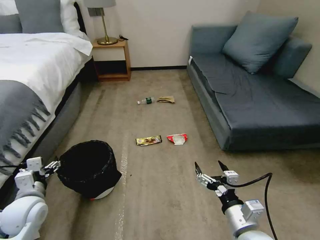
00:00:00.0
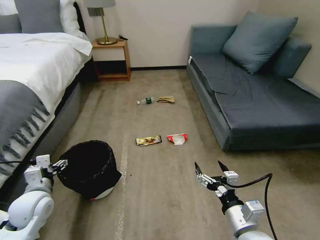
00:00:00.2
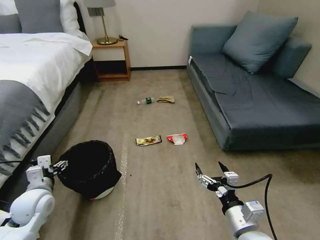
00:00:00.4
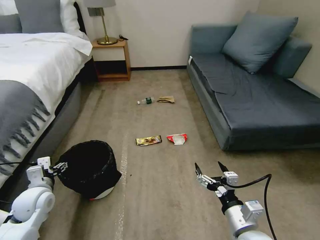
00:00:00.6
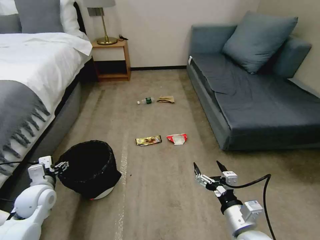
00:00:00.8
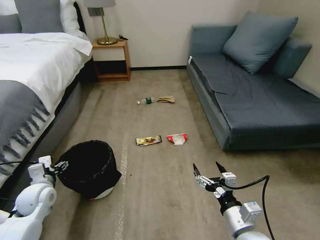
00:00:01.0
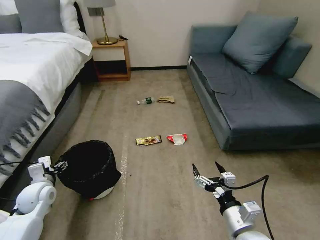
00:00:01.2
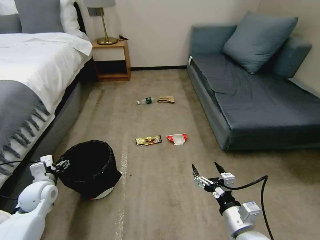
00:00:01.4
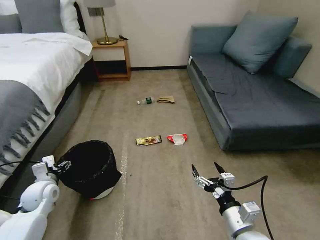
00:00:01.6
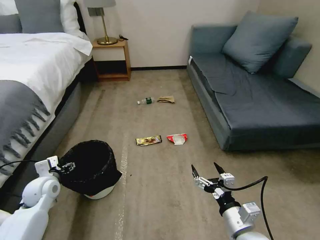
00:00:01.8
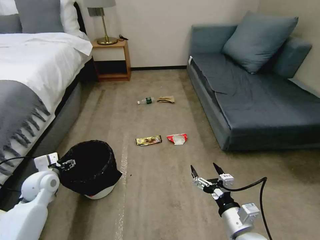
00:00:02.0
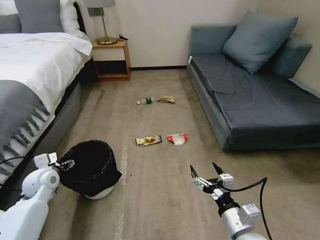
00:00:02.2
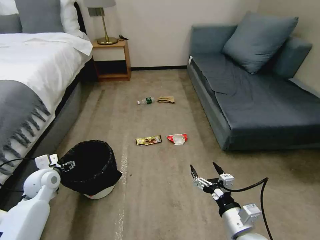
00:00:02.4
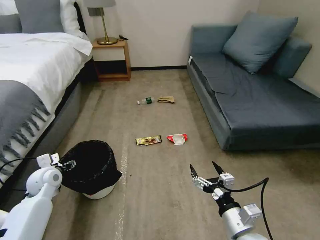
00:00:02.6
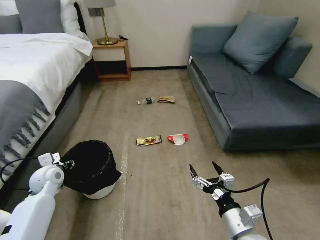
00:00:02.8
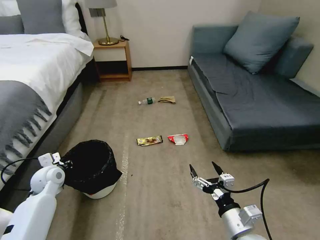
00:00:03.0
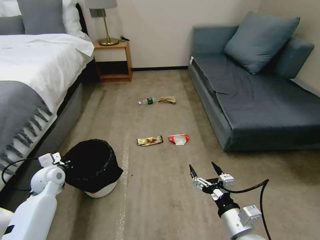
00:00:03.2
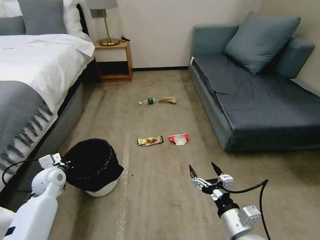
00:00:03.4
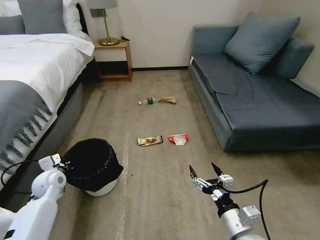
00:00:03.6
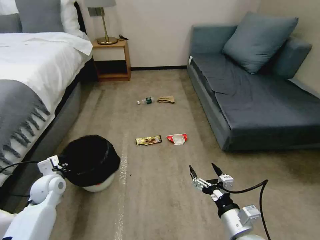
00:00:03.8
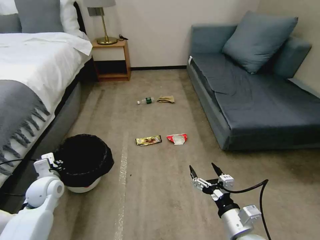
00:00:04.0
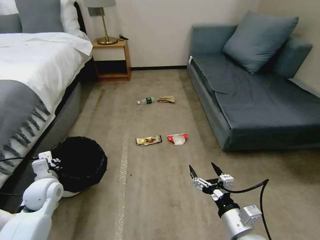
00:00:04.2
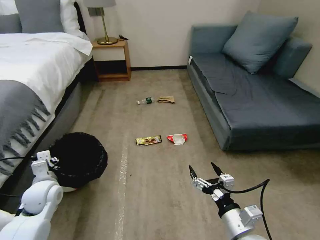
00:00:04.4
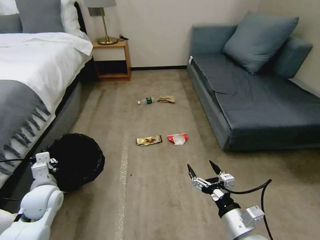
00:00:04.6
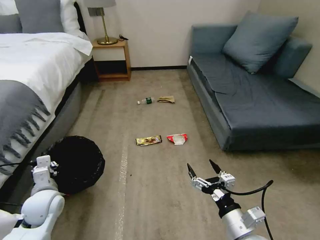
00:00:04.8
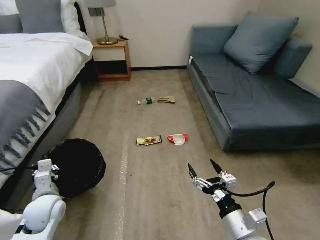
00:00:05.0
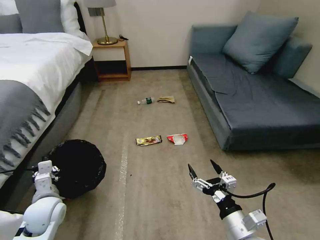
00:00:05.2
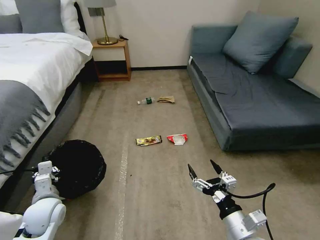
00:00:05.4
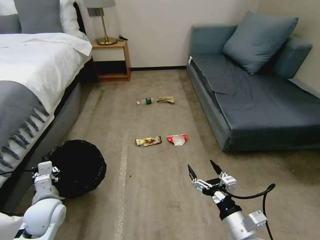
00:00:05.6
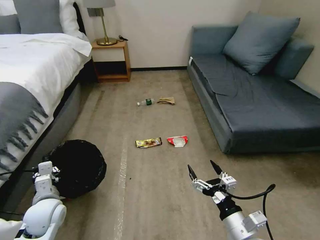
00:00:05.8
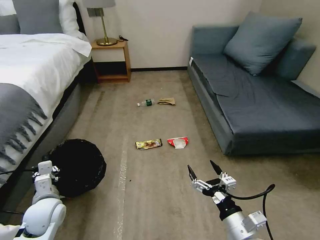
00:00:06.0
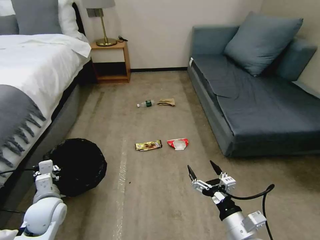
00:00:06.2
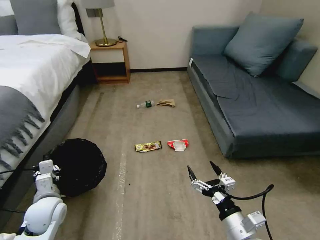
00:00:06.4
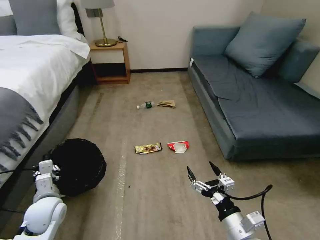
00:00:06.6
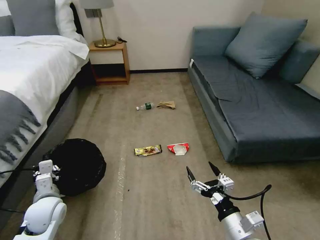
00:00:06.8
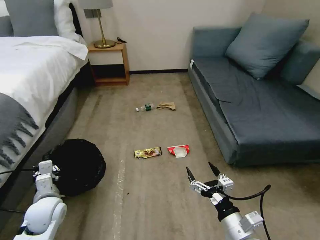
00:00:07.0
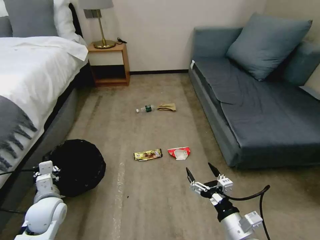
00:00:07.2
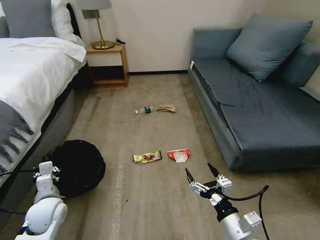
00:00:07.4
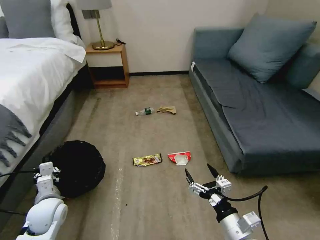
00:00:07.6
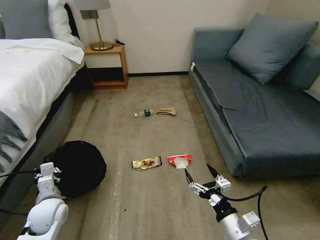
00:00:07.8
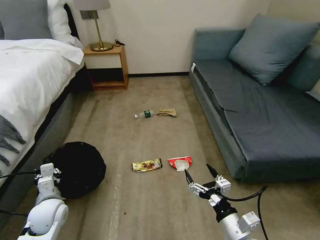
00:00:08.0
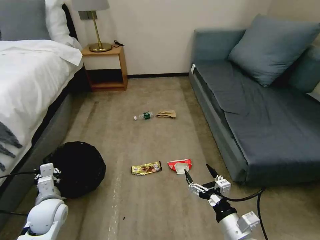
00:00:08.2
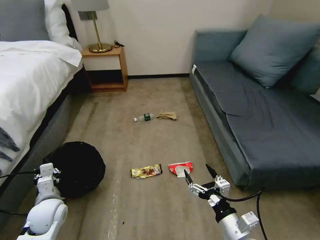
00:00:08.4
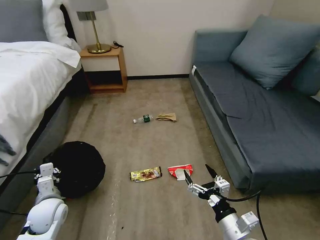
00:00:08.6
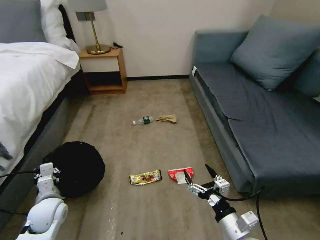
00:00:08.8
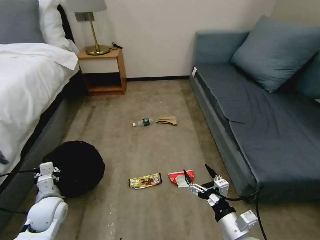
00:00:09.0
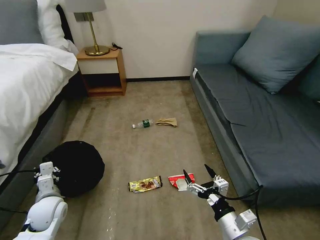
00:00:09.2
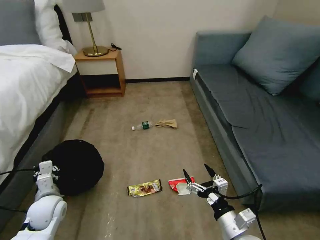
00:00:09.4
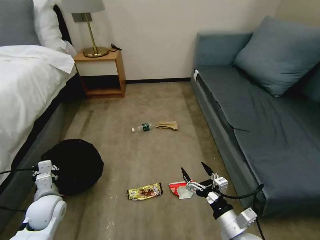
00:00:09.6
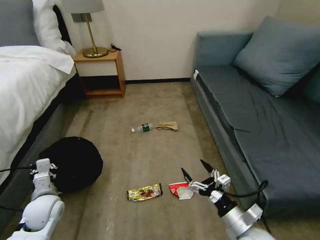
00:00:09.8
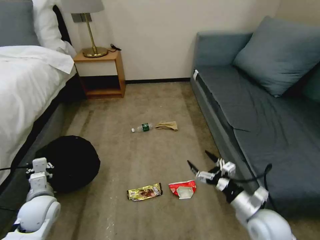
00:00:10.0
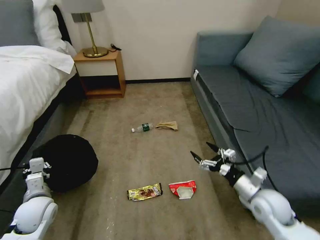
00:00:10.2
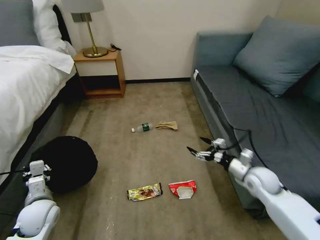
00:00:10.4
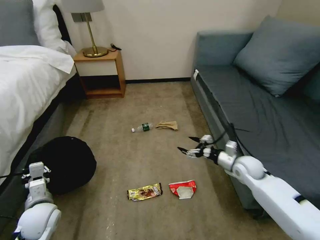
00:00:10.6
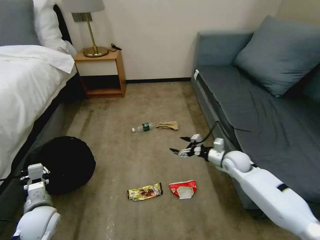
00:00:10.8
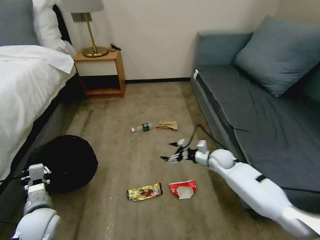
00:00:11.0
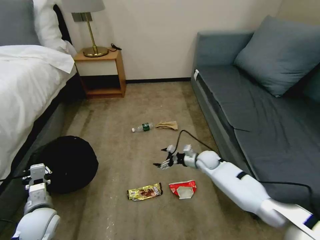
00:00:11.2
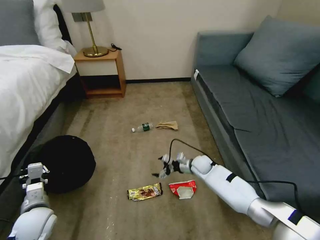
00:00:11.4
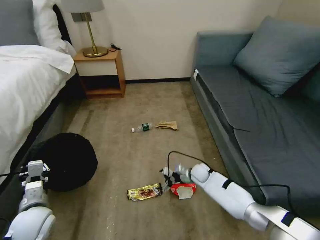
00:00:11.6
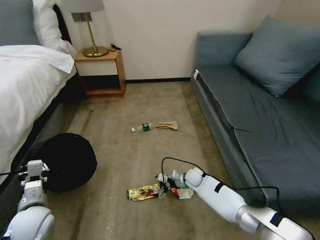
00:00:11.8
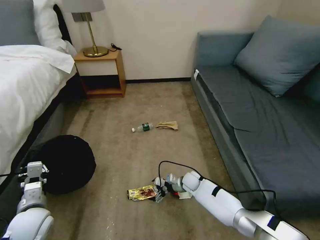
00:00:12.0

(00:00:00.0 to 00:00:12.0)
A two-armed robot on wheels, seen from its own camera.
Task of the whole recording: Pick up the trash bin, then pick up the garbage on the floor and place it into the trash bin.
00:00:00.0 - 00:00:01.6: The left gripper shifts approximately 5 cm forward.
00:00:01.6 - 00:00:03.0: The left gripper shifts approximately 5 cm forward, and closes up.
00:00:03.0 - 00:00:04.4: The left gripper moves backward, some 5 cm.
00:00:04.4 - 00:00:06.0: The left gripper changes place by about 5 cm.
00:00:09.0 - 00:00:10.4: The right gripper goes roughly 25 cm forward and to the right.
00:00:10.4 - 00:00:12.0: The right gripper travels to the left and downward by about 30 cm.

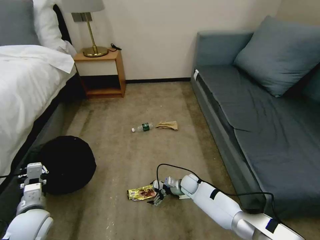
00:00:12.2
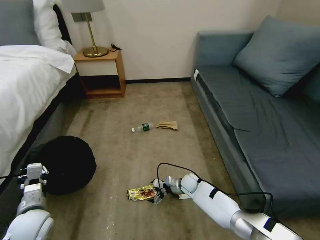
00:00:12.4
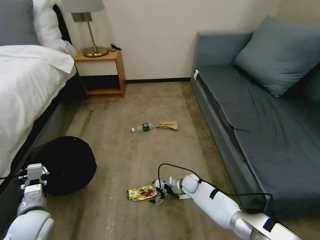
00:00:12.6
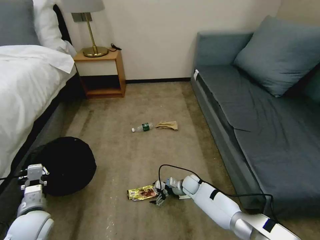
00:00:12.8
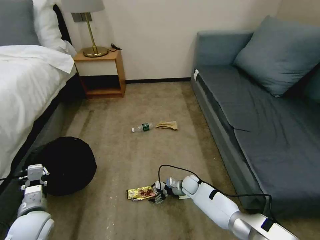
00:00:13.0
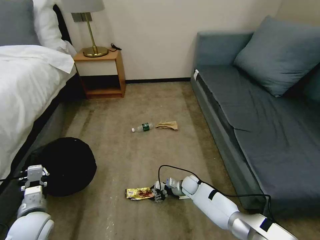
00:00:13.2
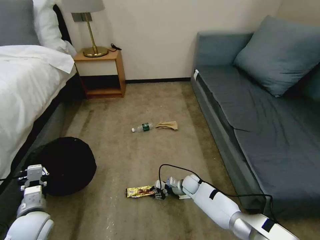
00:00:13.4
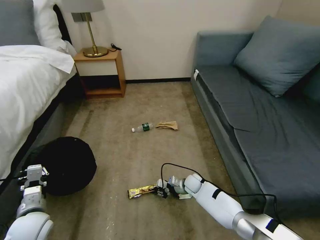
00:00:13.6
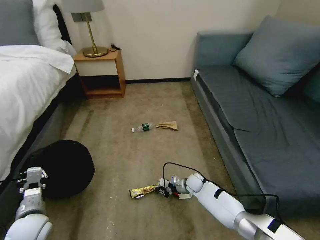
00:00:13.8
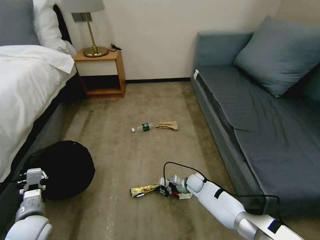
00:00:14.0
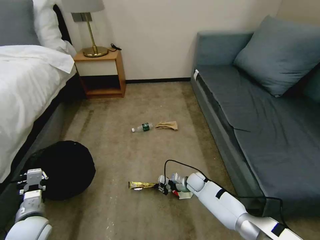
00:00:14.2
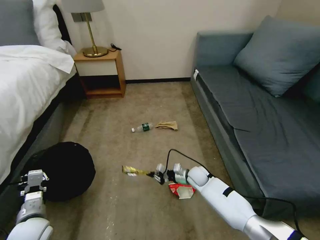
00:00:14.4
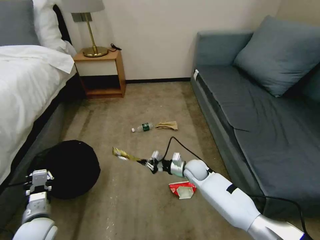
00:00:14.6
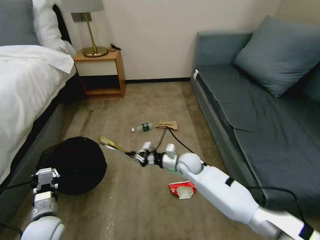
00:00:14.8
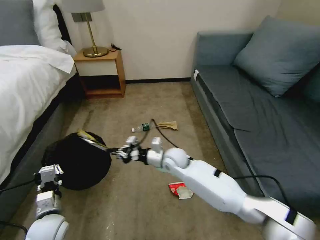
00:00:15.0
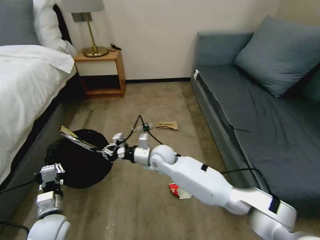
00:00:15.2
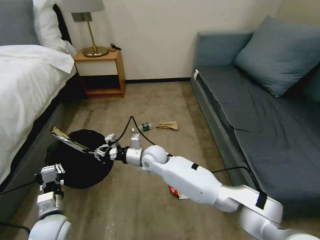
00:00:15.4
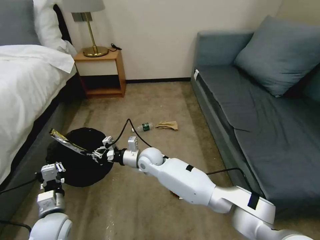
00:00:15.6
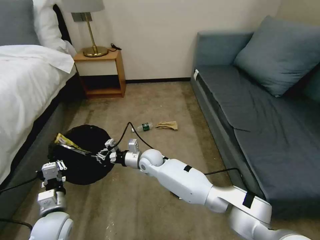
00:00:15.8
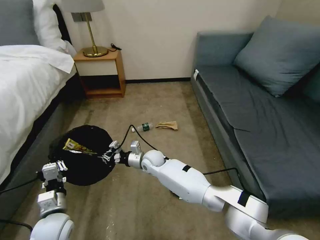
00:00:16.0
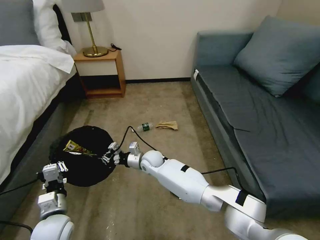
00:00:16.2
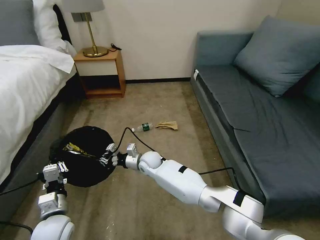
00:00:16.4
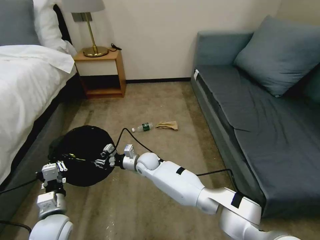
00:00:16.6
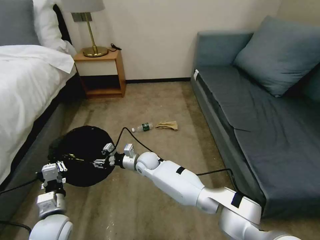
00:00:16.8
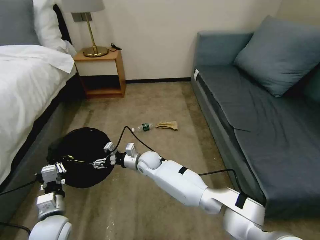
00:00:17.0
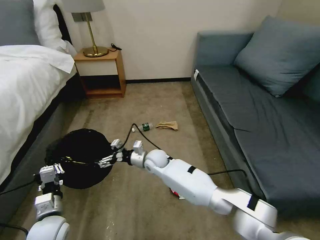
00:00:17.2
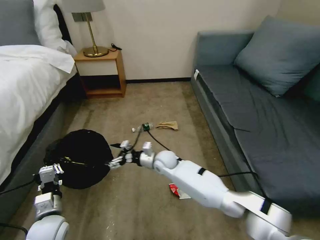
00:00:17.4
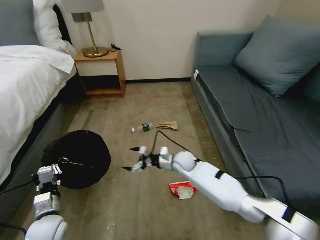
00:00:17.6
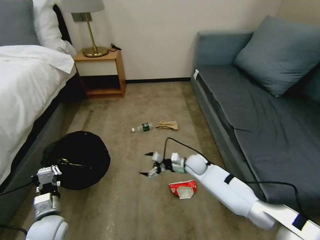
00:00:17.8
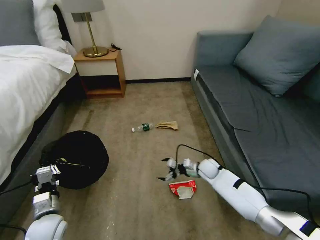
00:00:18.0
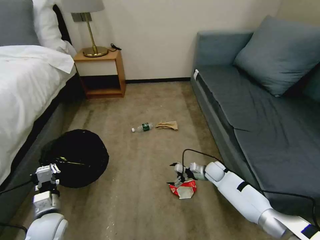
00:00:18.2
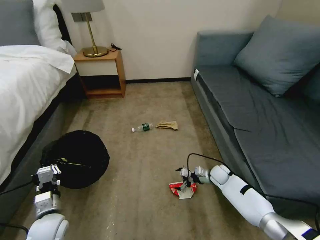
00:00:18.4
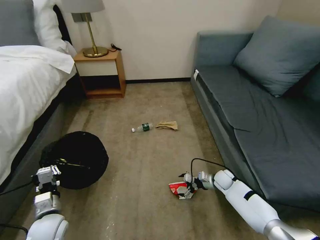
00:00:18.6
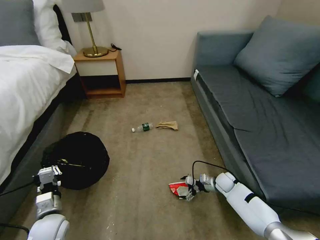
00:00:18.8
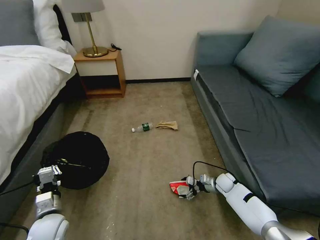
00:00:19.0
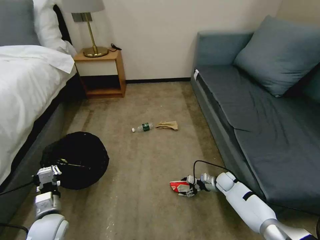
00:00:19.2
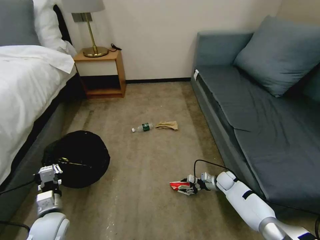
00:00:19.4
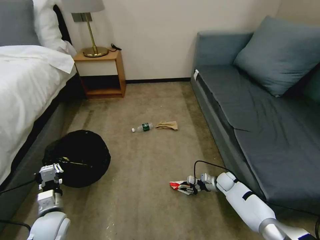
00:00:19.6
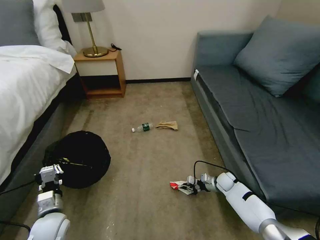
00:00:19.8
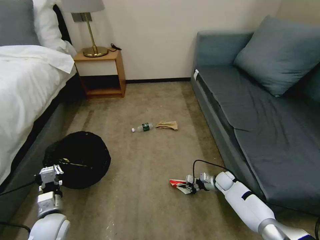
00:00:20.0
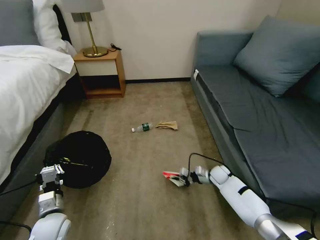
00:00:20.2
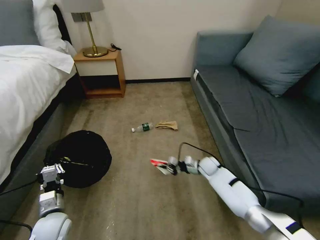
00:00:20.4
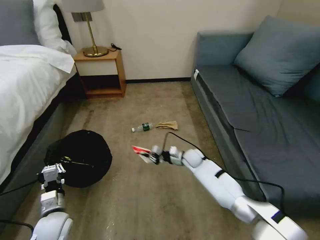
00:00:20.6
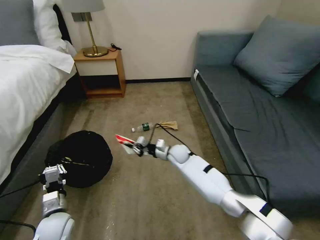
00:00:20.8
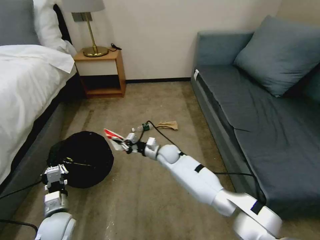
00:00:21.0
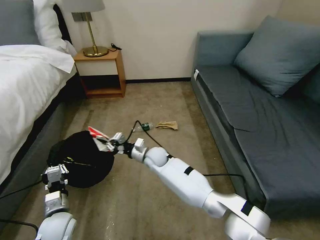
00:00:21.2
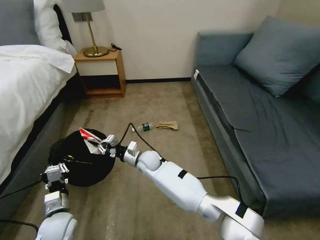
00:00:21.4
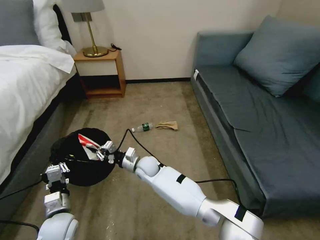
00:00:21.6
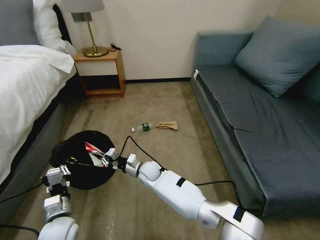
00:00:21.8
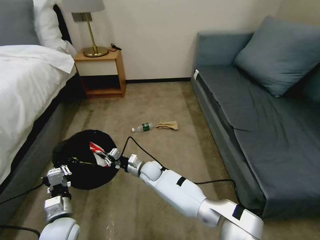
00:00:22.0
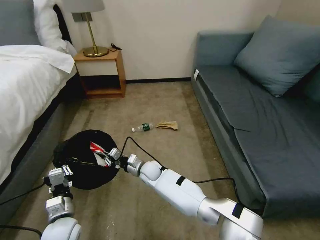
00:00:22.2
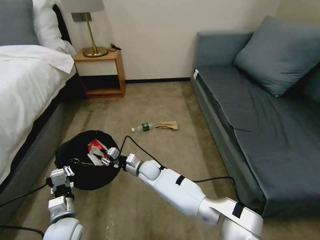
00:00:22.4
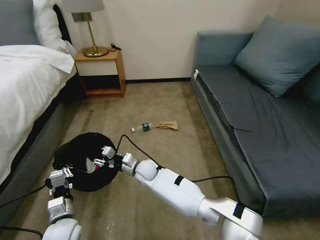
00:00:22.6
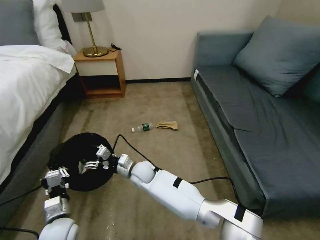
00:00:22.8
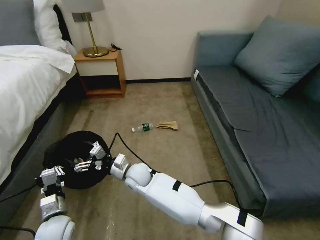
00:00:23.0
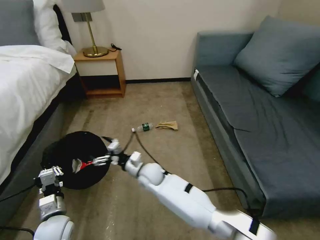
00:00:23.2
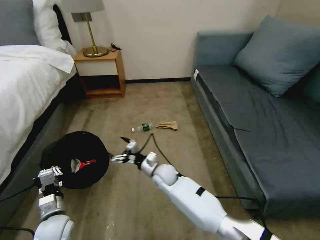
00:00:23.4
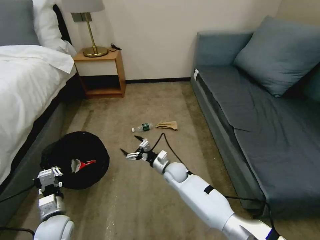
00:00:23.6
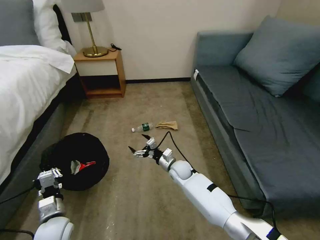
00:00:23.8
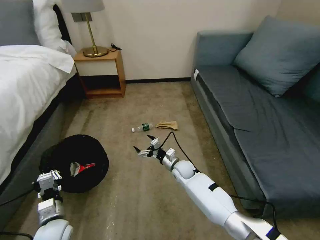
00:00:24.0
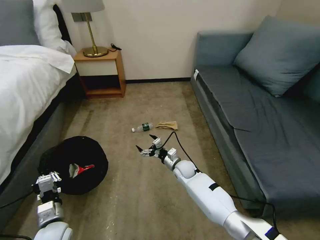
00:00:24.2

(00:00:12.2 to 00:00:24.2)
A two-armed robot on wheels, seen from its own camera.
Task of the whole recording: Pick up the trash bin, then pick up the garbage on the floor and place it into the trash bin.
00:00:12.2 - 00:00:13.8: The right gripper closes its fingers.
00:00:13.8 - 00:00:15.2: The left gripper moves about 5 cm, while the right gripper goes some 30 cm upward and to the left.
00:00:15.2 - 00:00:16.6: The right gripper travels downward and to the left by roughly 10 cm.
00:00:16.6 - 00:00:18.2: The right gripper goes some 30 cm to the right, and opens up.
00:00:18.2 - 00:00:19.8: The right gripper moves to the right and downward, about 10 cm, and closes up.
00:00:19.8 - 00:00:21.2: The right gripper heads to the left and upward, covering approximately 40 cm.
00:00:21.2 - 00:00:22.6: The right gripper ends up roughly 5 cm from where it was, and opens.
00:00:22.6 - 00:00:24.2: The right gripper is displaced to the right by roughly 15 cm, and opens its fingers.
